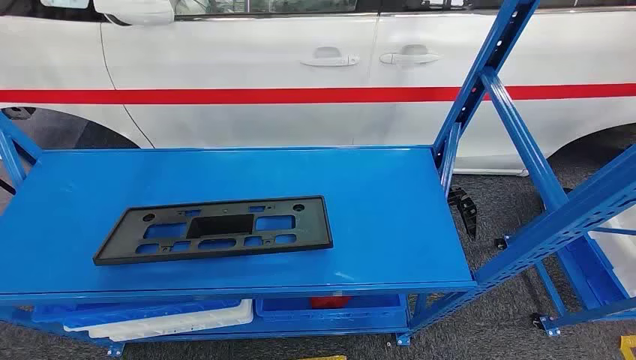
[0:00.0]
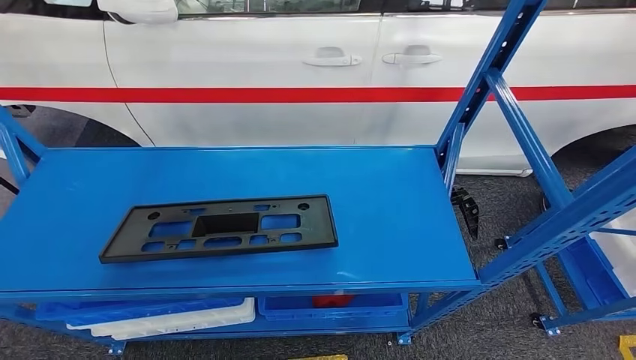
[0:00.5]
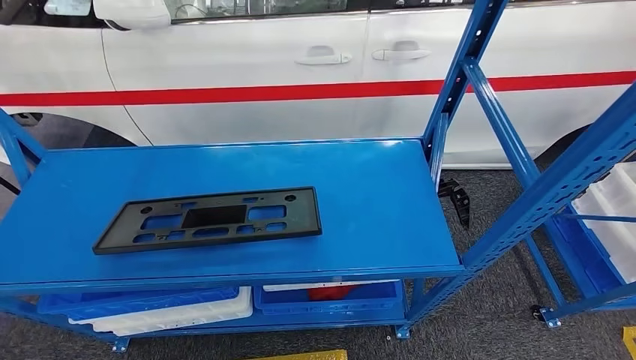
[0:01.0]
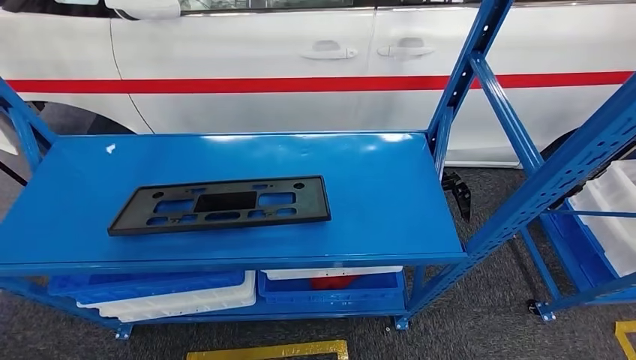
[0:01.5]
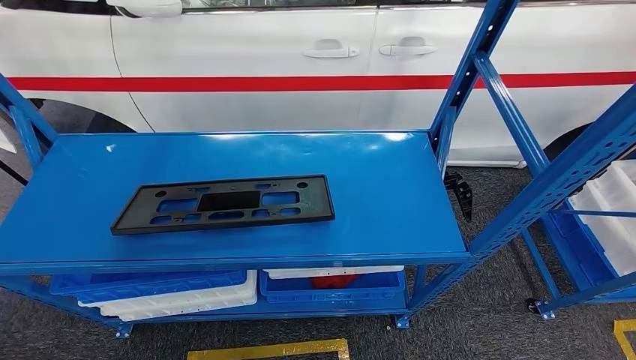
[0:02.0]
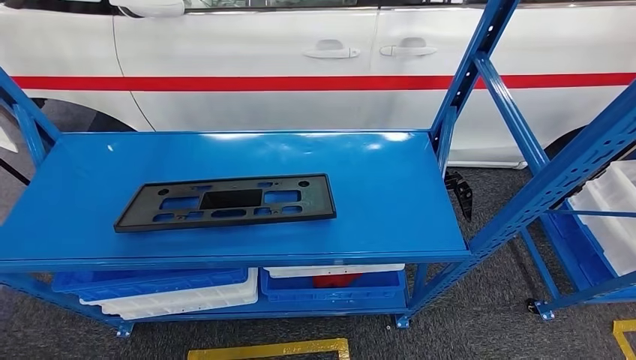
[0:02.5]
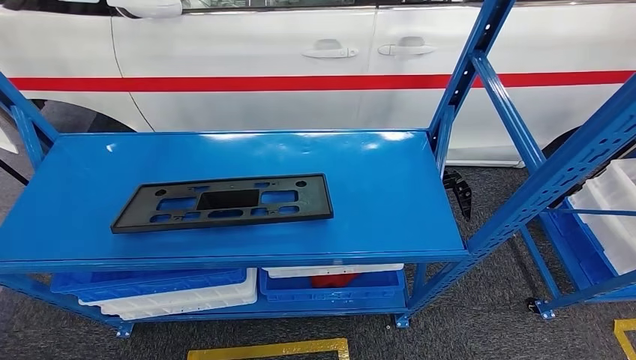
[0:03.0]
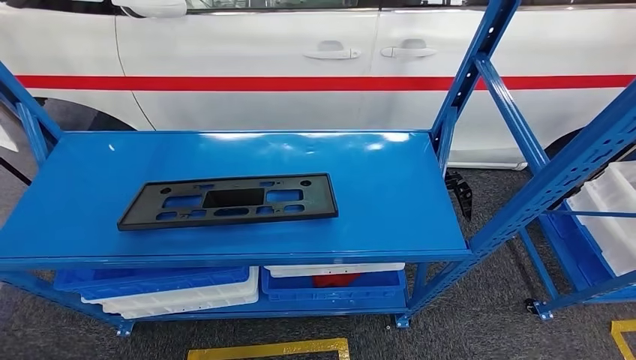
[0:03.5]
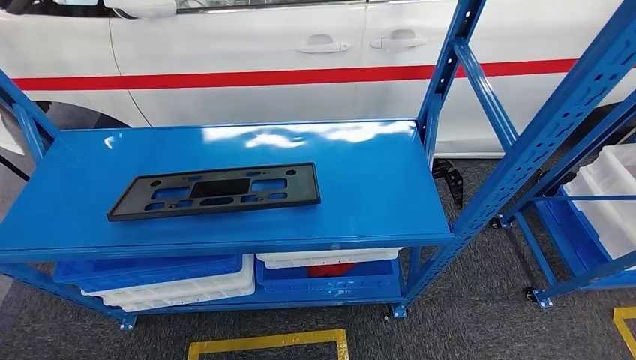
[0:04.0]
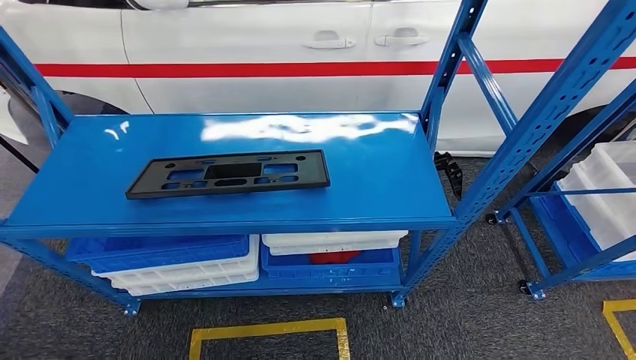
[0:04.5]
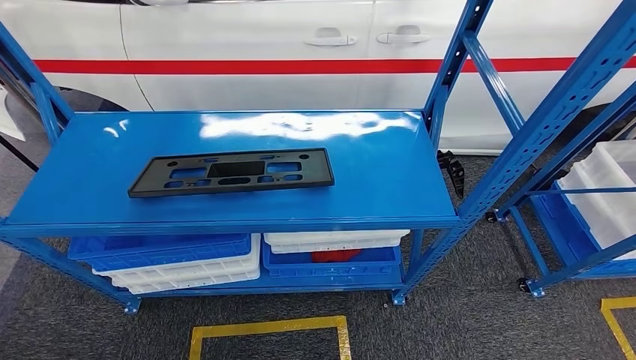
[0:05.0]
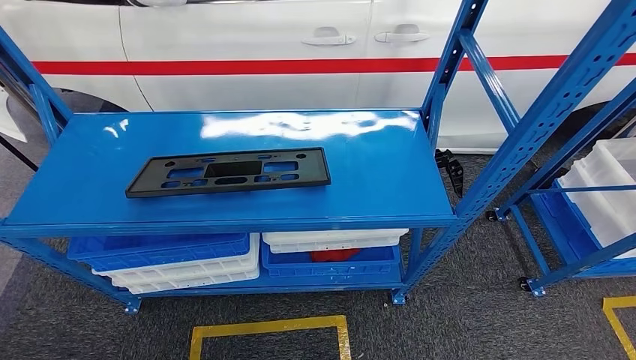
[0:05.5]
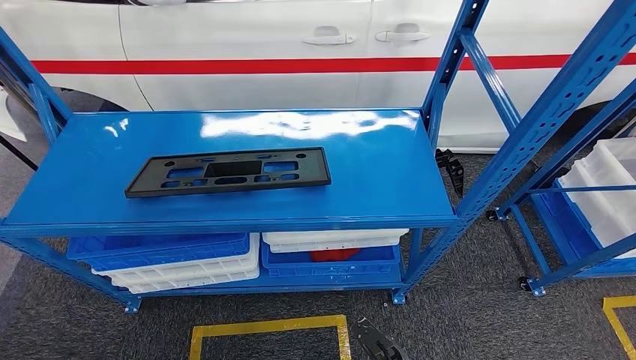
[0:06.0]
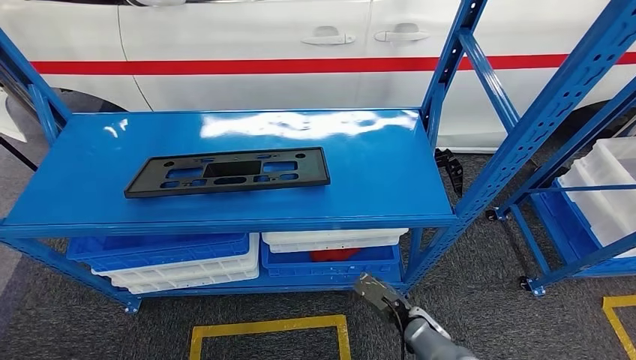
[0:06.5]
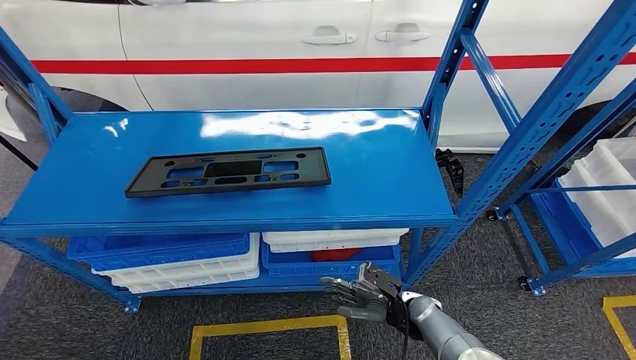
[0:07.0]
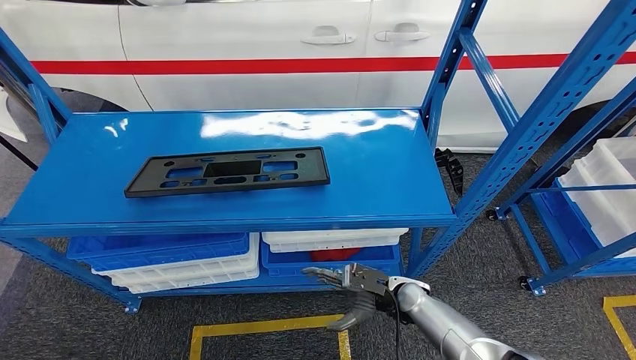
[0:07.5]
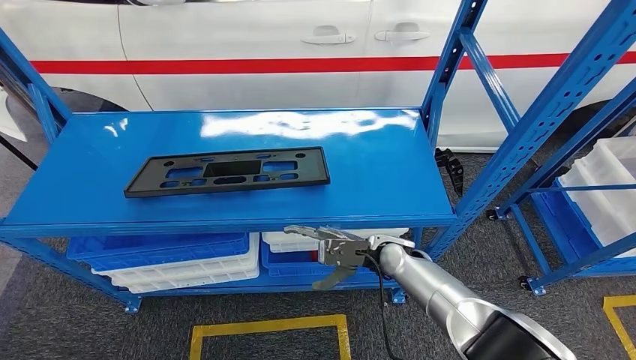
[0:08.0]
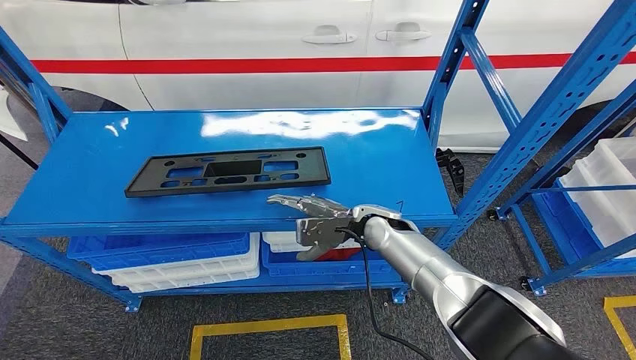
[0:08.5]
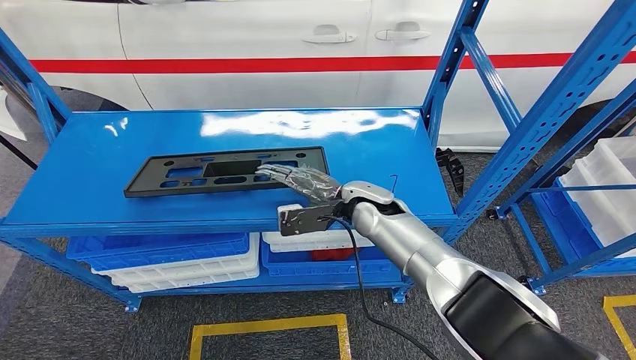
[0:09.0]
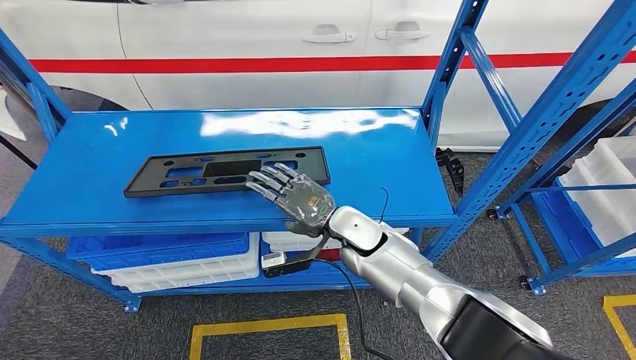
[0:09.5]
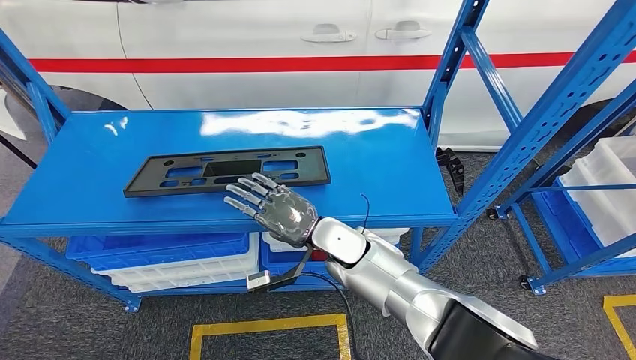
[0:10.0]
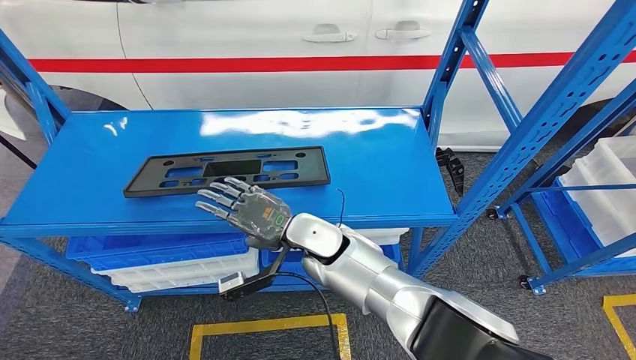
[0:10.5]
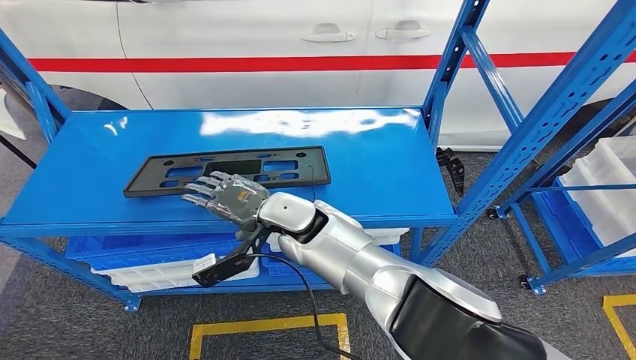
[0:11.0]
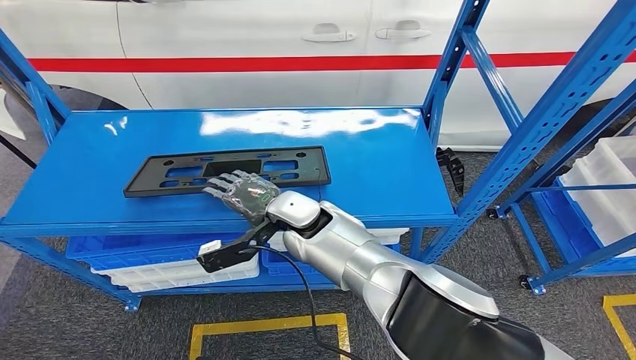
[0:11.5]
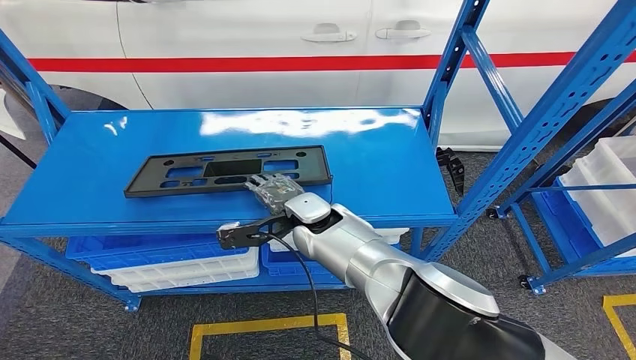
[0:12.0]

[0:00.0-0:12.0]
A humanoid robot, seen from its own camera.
0:06.0 to 0:08.0: The right hand is displaced forward and upward by approximately 25 cm.
0:08.0 to 0:10.0: The right hand travels to the left and upward by roughly 15 cm.
0:10.0 to 0:12.0: The right hand travels to the left by roughly 5 cm.

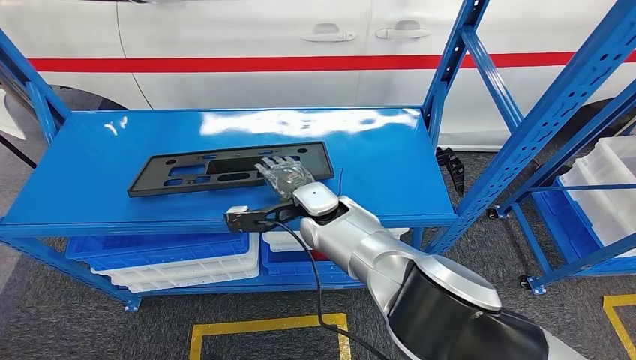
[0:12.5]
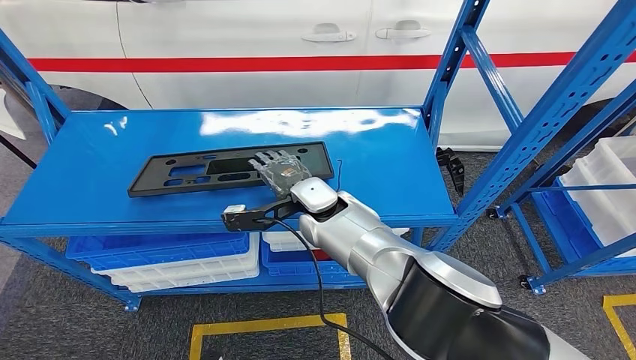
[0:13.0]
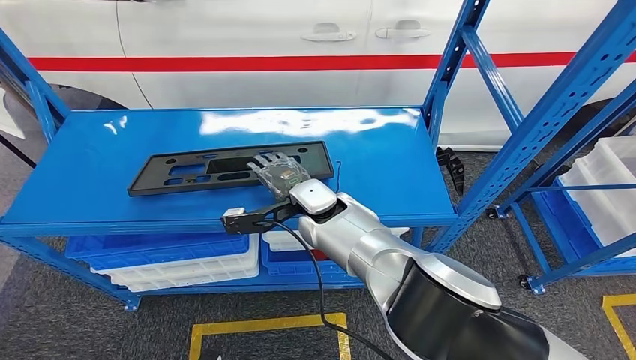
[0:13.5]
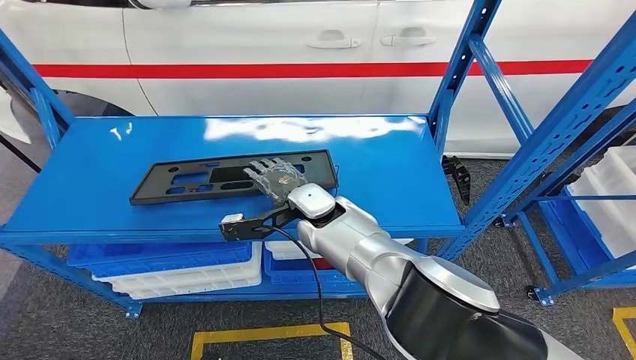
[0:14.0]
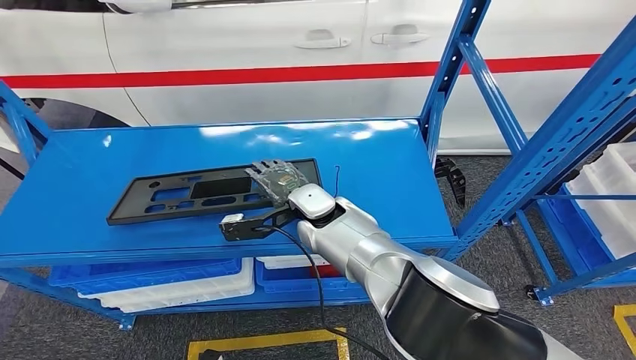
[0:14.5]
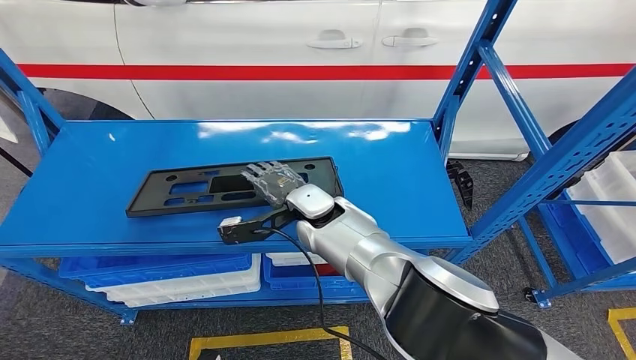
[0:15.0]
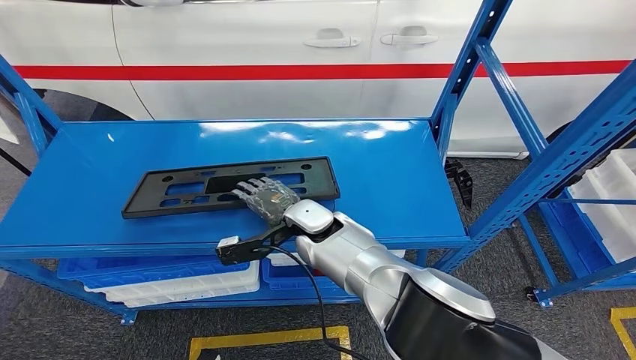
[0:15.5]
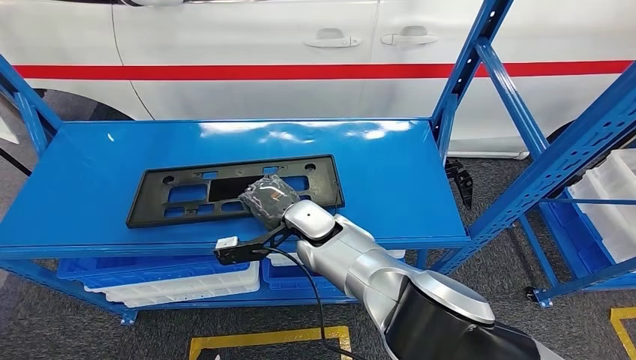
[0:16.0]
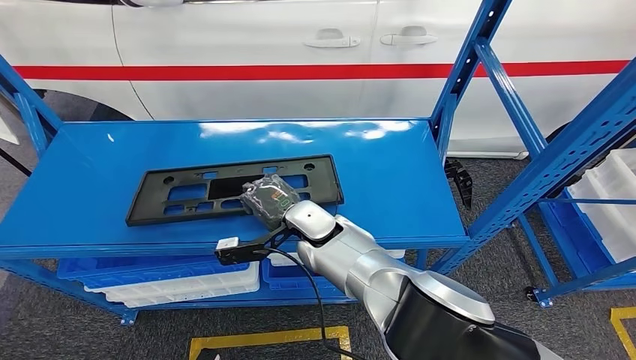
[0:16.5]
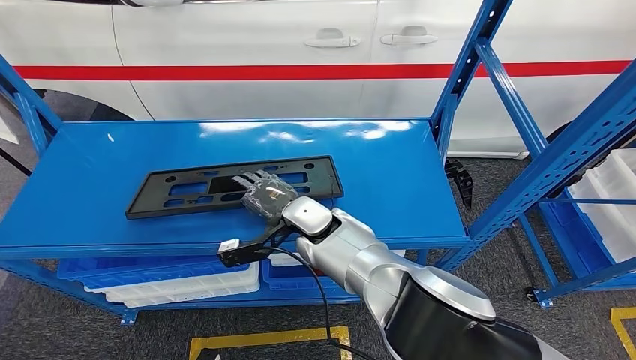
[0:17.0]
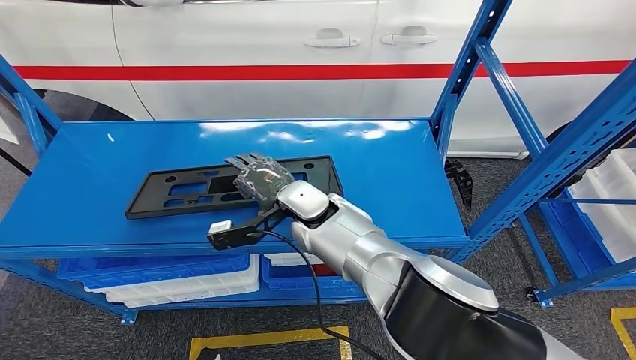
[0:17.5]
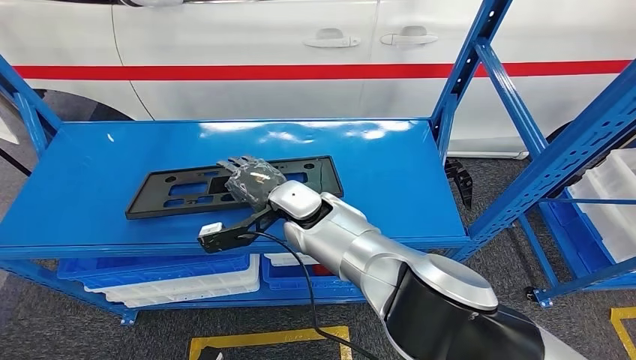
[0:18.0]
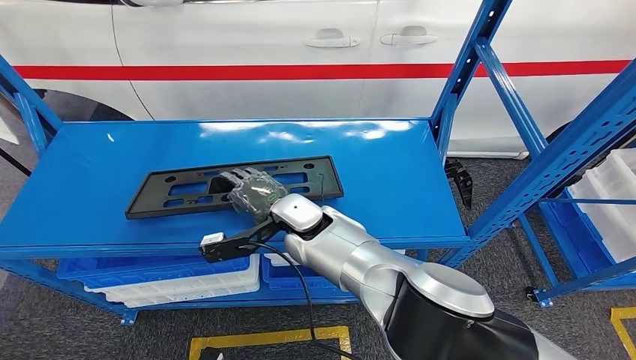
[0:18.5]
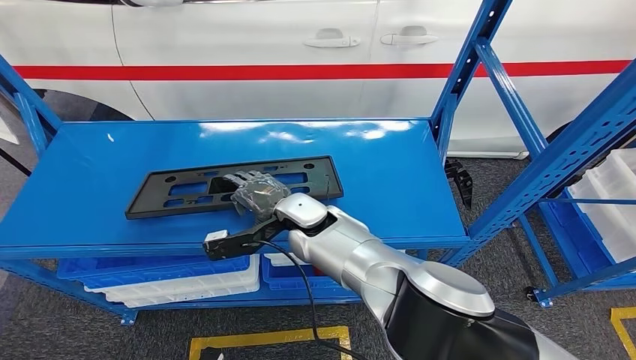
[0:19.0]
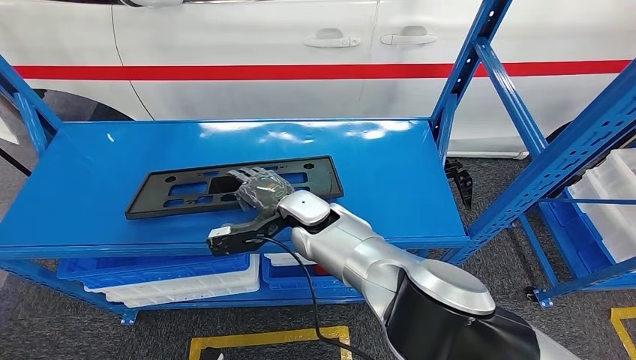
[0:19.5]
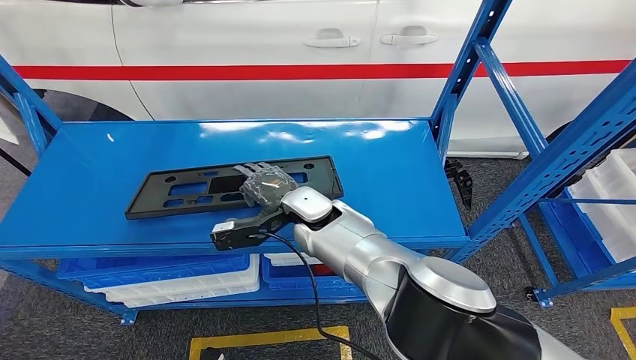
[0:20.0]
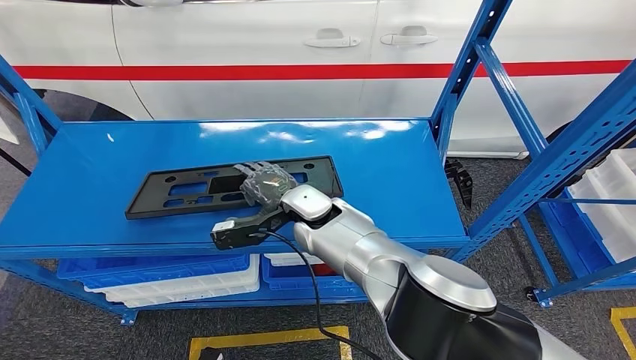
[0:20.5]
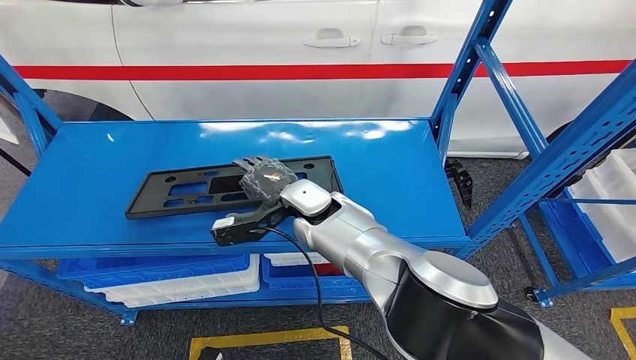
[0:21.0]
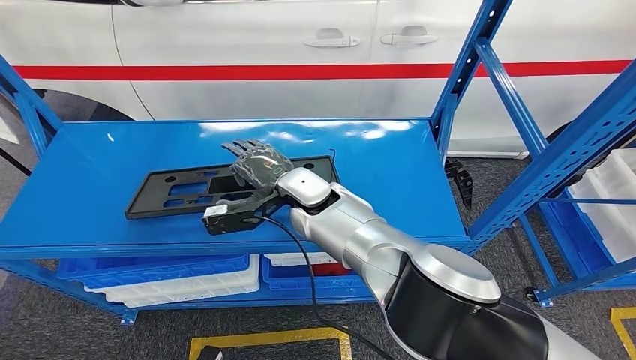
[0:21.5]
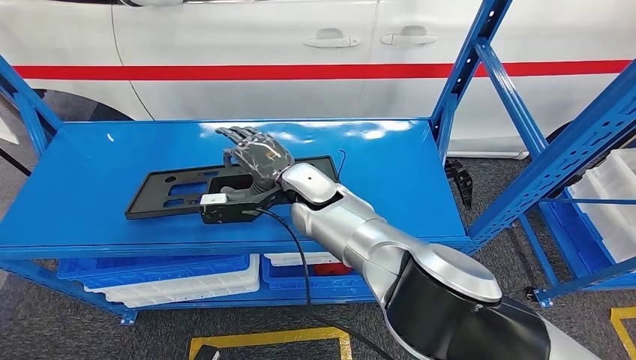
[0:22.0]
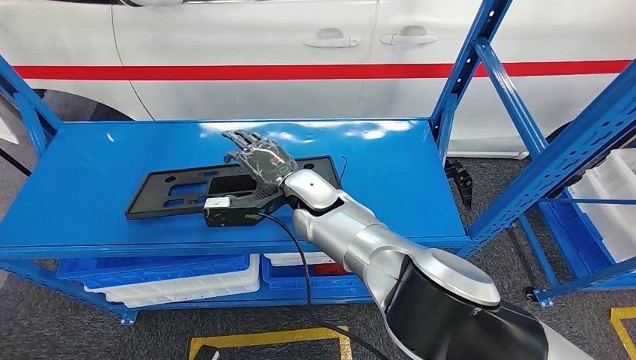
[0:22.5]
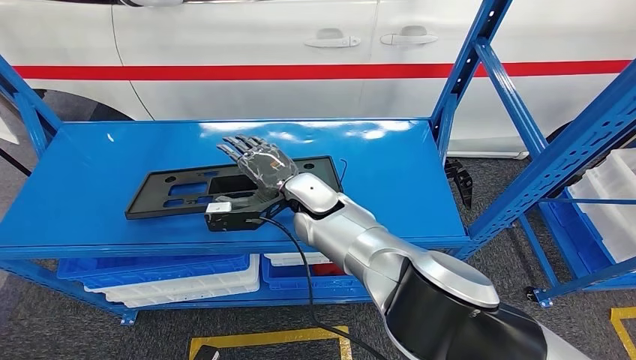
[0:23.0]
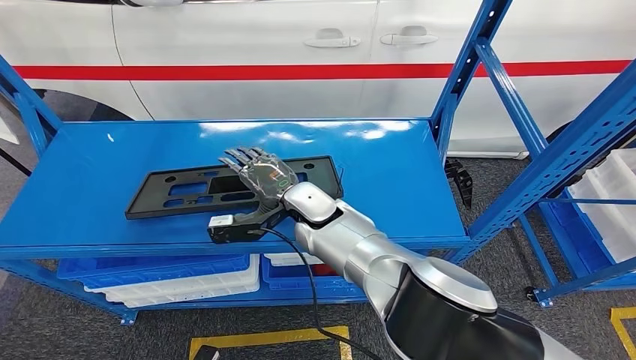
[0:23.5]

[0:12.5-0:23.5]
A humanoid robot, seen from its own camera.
0:16.0 to 0:18.0: The right hand ends up some 5 cm from where it was.
0:18.0 to 0:23.5: There are only small adjustments of the hands.
